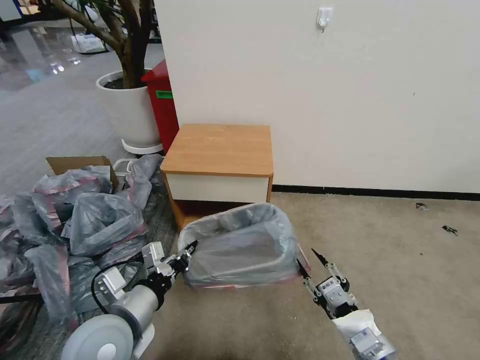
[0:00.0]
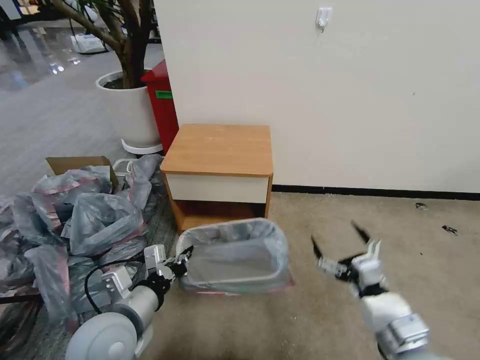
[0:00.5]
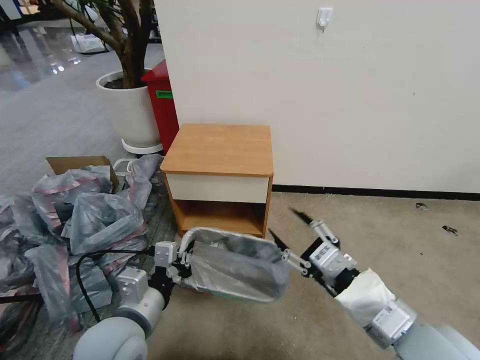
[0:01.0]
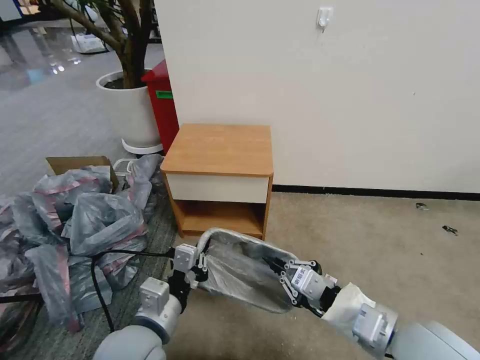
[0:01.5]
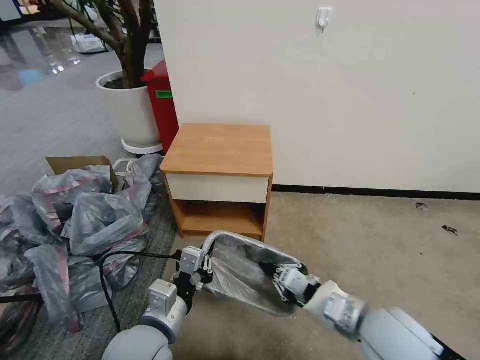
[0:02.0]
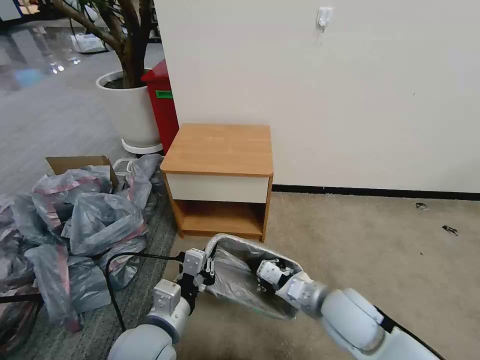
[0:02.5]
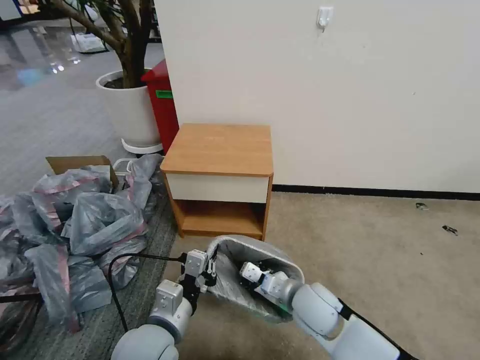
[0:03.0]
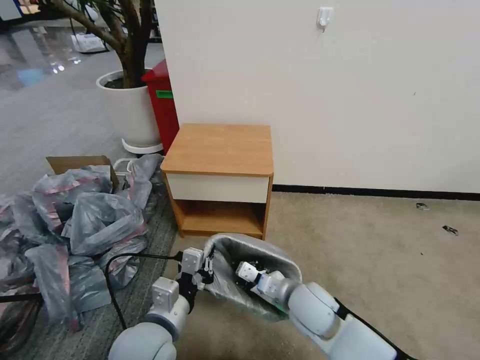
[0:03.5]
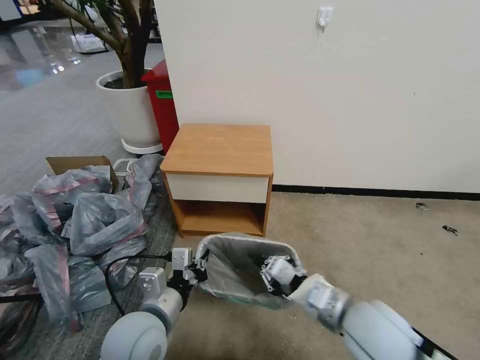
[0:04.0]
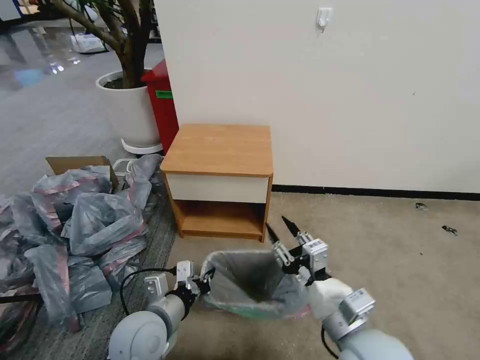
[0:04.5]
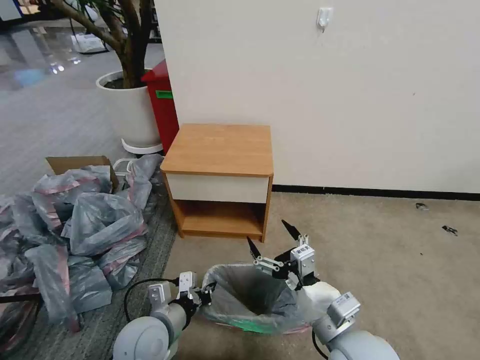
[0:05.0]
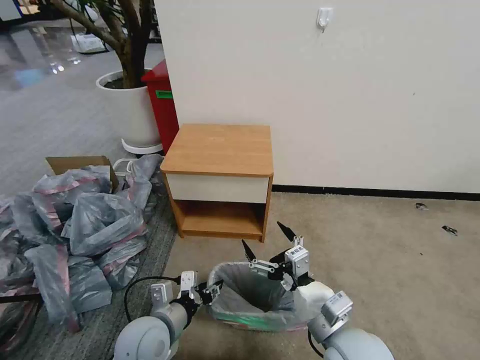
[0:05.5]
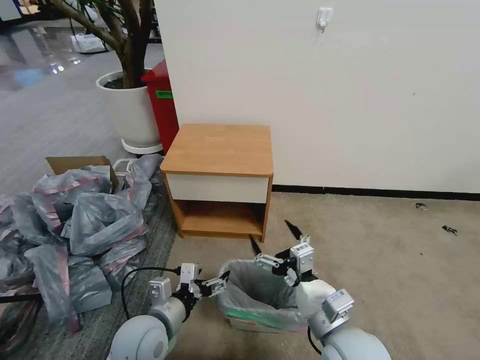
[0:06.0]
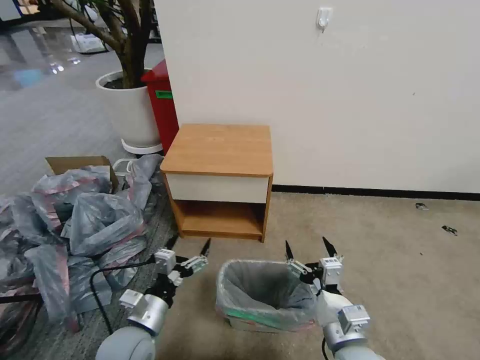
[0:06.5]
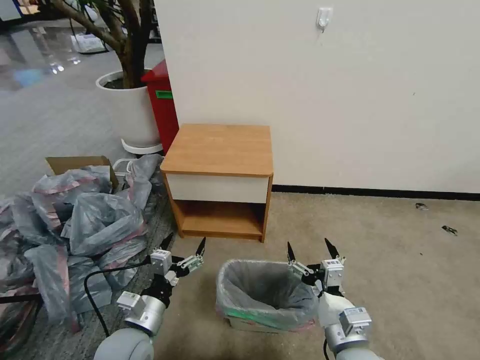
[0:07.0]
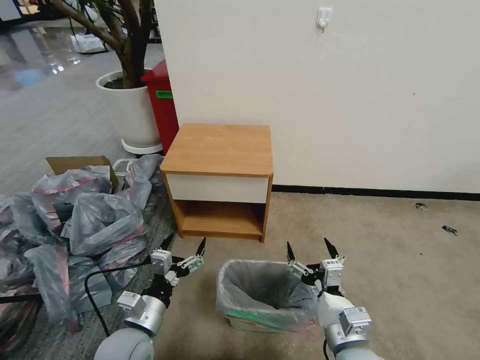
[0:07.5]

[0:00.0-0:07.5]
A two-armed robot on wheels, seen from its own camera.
Task of the whole recording: Pick up the garbage bag from the table and place it over the trash can.
0:00.0 to 0:02.0: The left gripper goes approximately 5 cm to the right. The right gripper heads upward and forward, covering about 10 cm, and closes.
0:02.0 to 0:04.0: The right gripper goes downward and returns, approximately 10 cm each way.
0:04.0 to 0:05.5: The right gripper shifts by approximately 5 cm, and opens, while the left gripper shifts about 5 cm downward, and opens up.
0:05.5 to 0:07.5: The right gripper ends up approximately 5 cm from where it was, while the left gripper opens up.

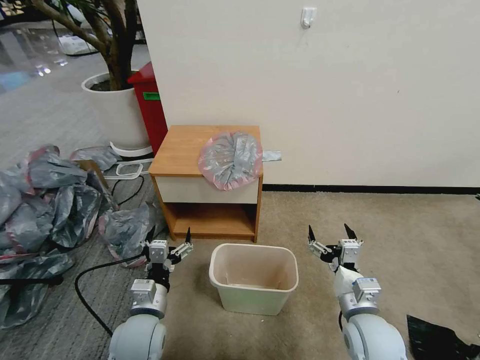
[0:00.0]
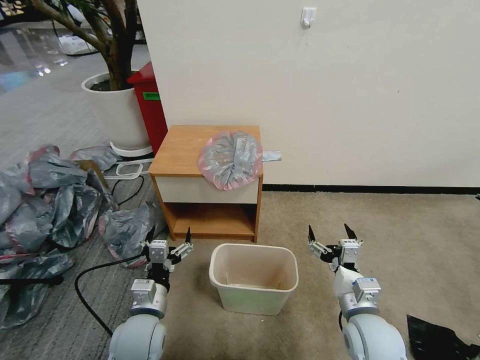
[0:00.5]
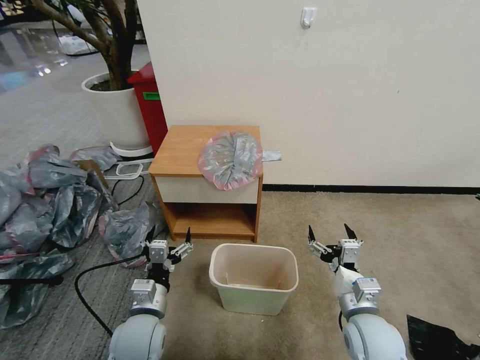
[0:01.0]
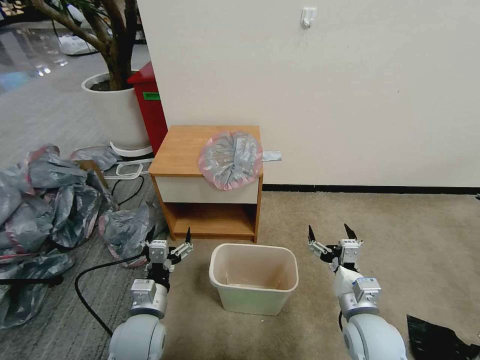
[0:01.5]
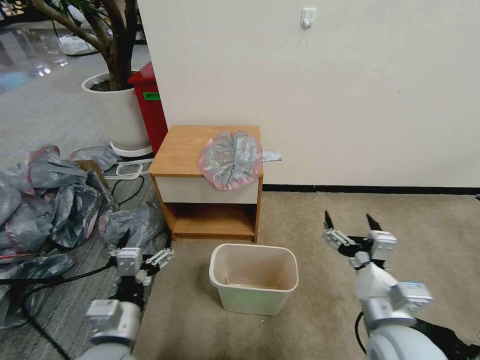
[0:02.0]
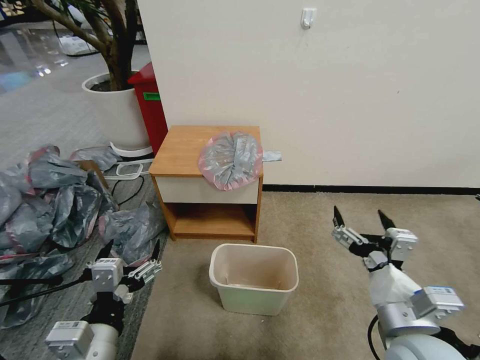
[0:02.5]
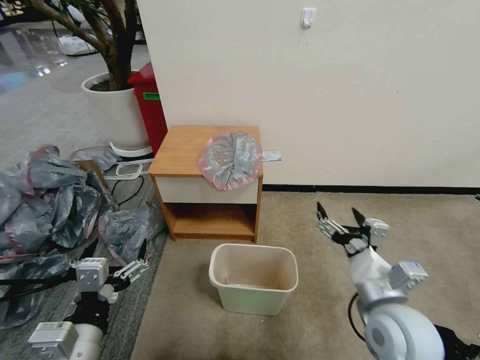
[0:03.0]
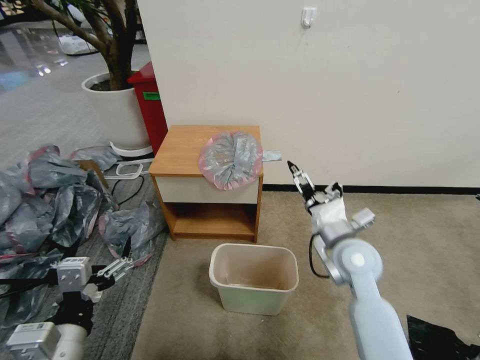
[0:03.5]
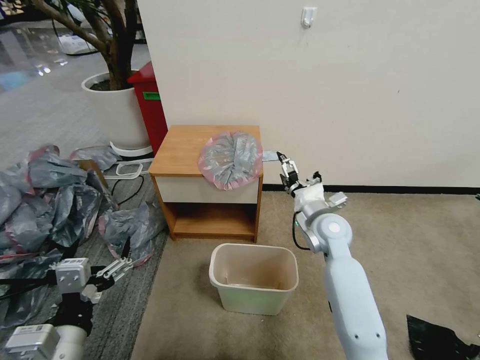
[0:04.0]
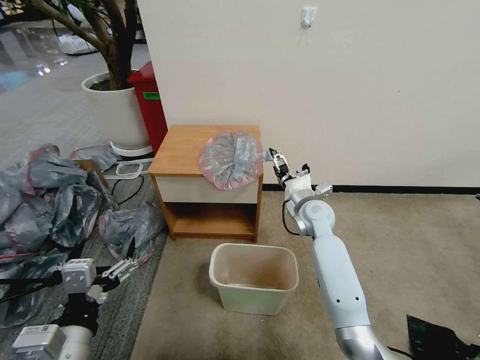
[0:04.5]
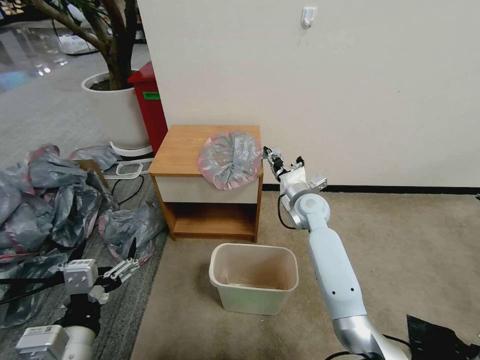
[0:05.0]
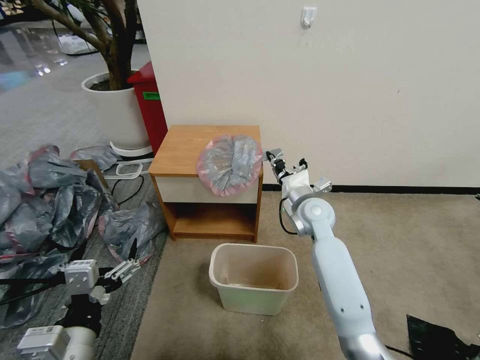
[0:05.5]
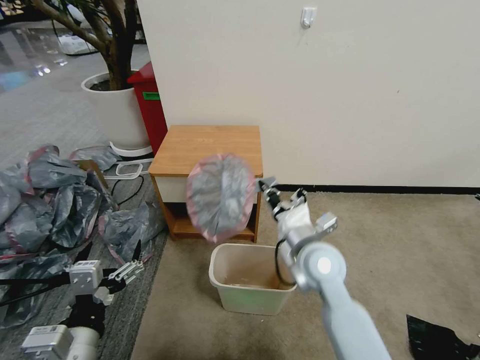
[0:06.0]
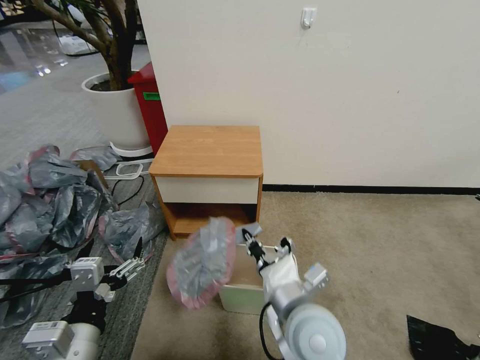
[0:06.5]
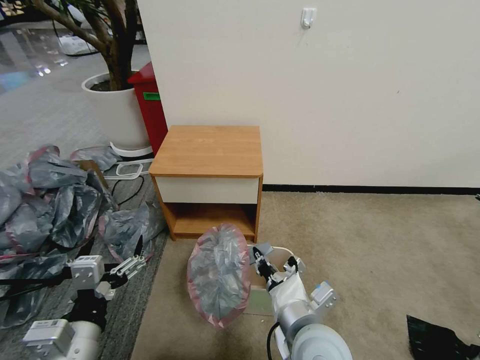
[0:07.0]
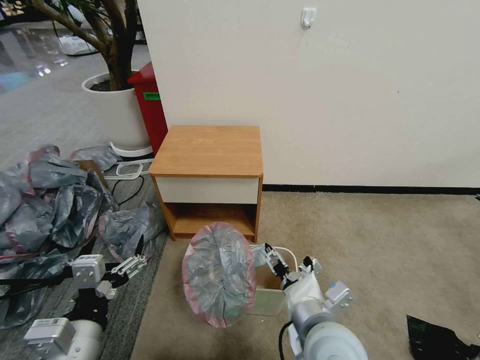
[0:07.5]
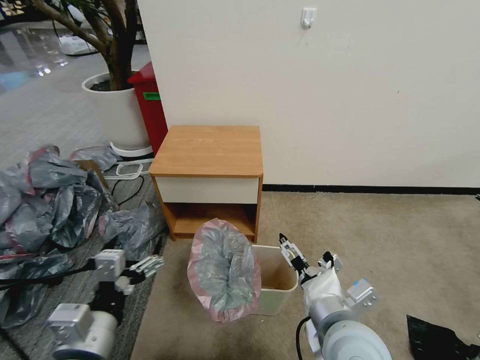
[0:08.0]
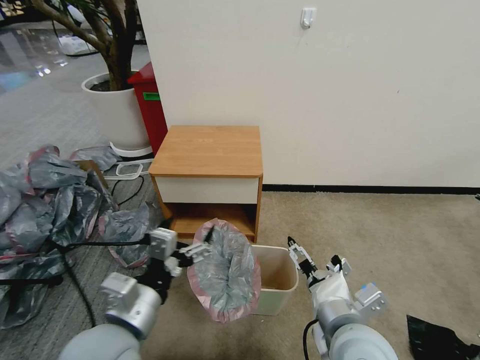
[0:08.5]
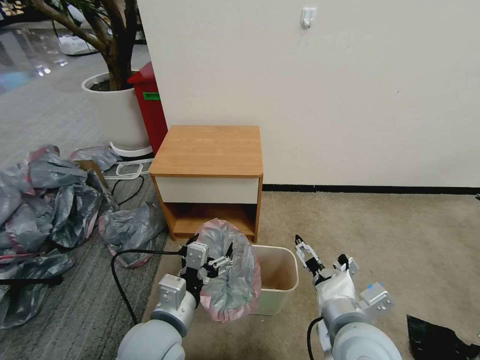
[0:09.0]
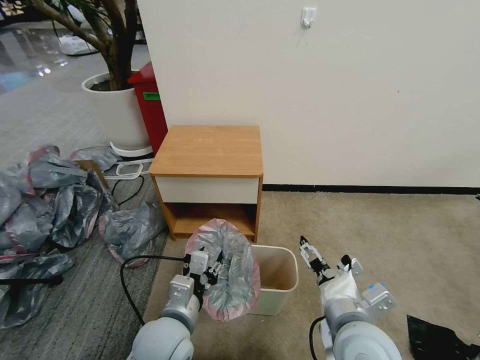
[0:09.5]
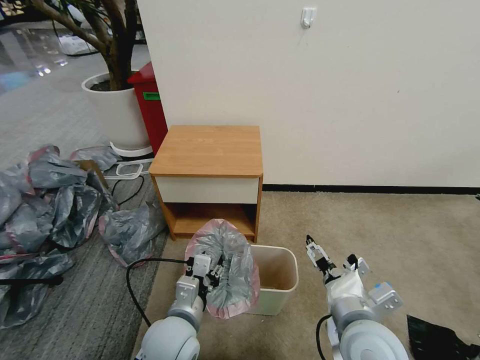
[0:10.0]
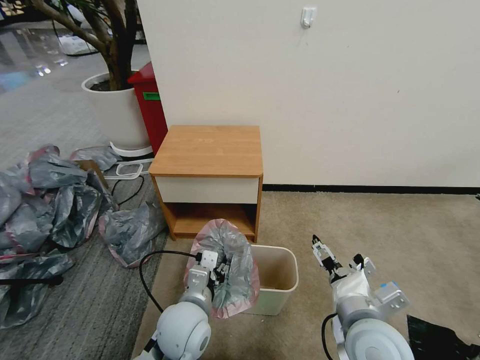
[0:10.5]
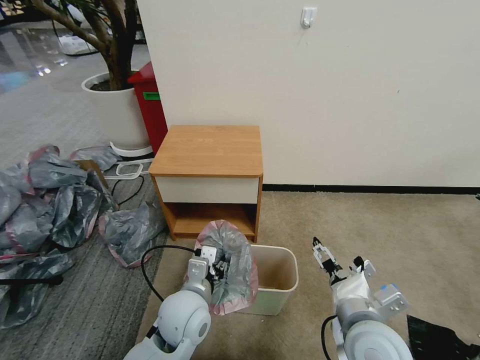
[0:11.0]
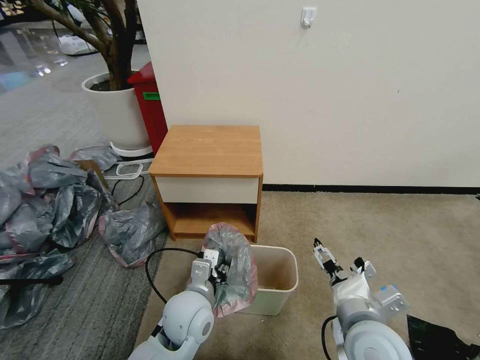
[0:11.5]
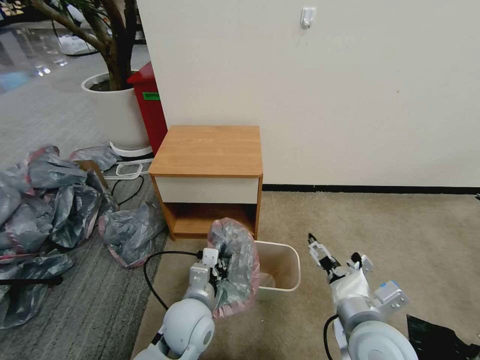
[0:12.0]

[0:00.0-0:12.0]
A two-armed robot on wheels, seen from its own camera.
Task of the whole recording: Pick up the garbage bag from the table and place it over the trash can.
0:02.0 to 0:04.0: The right gripper shifts roughly 25 cm forward, while the left gripper moves upward and backward, roughly 10 cm.
0:04.0 to 0:06.0: The right gripper heads backward and to the left, covering roughly 10 cm, and closes.
0:06.0 to 0:08.0: The right gripper heads backward, covering some 15 cm, and opens its fingers.
0:08.0 to 0:10.0: The left gripper travels to the right, downward and forward by approximately 15 cm, and closes up.
0:10.0 to 0:12.0: The left gripper moves some 5 cm, and closes its fingers.

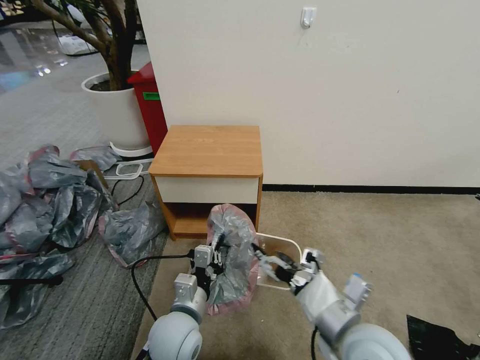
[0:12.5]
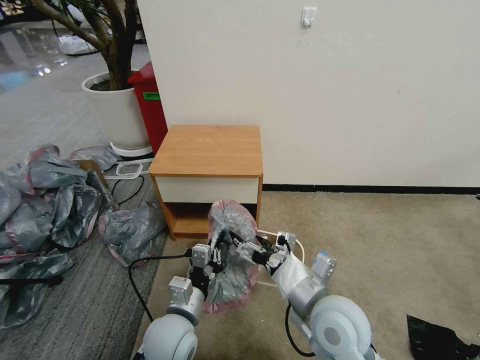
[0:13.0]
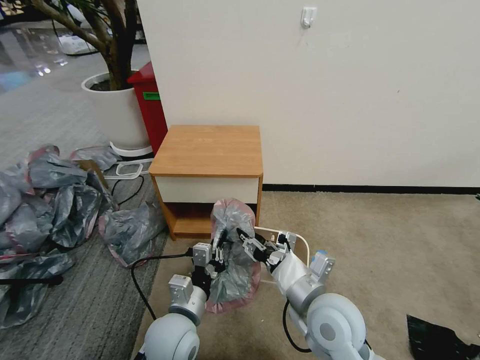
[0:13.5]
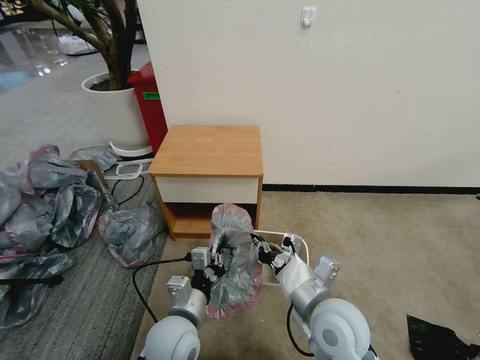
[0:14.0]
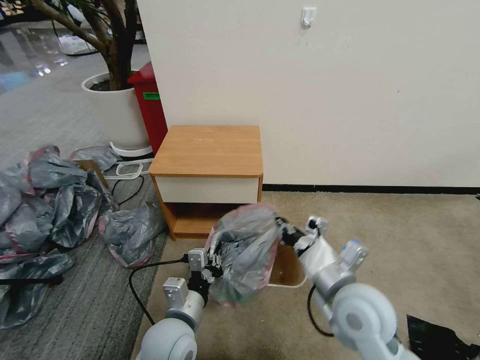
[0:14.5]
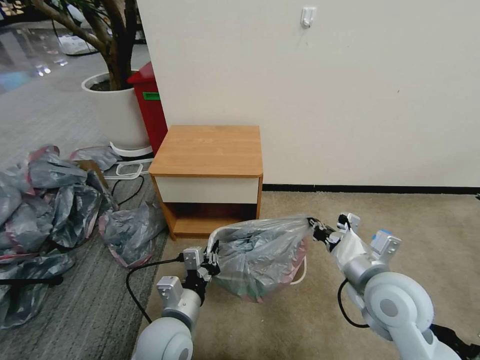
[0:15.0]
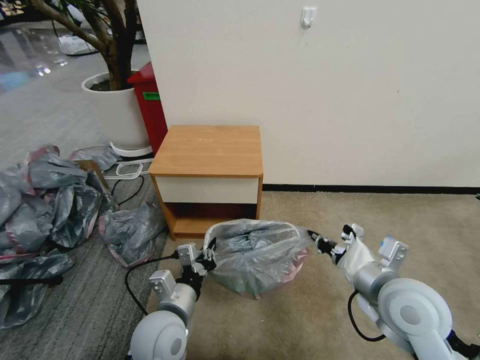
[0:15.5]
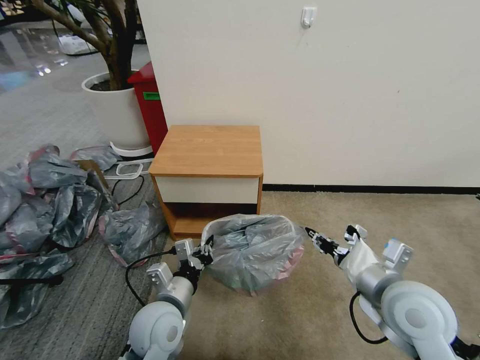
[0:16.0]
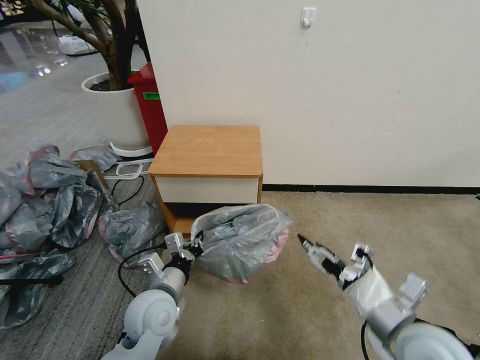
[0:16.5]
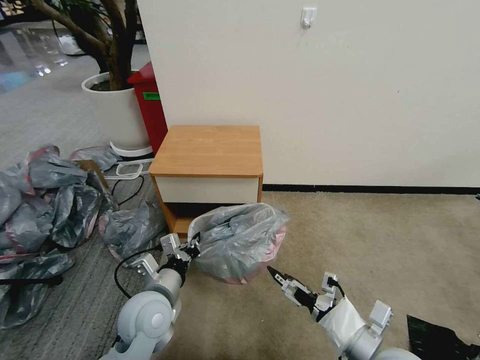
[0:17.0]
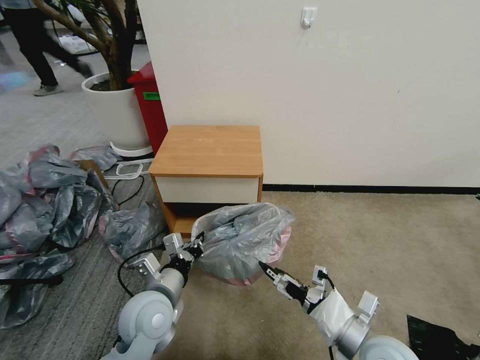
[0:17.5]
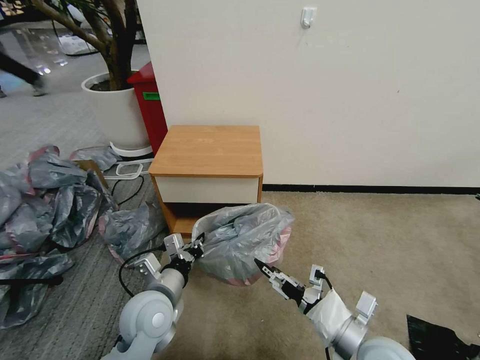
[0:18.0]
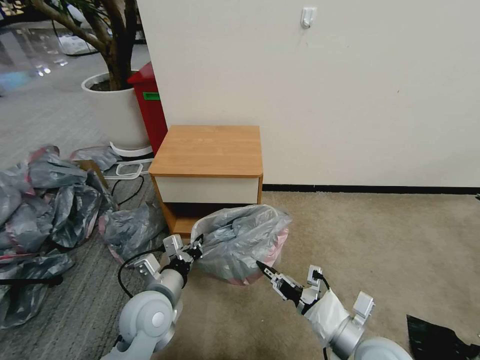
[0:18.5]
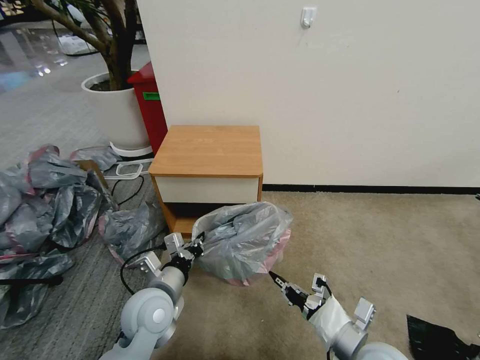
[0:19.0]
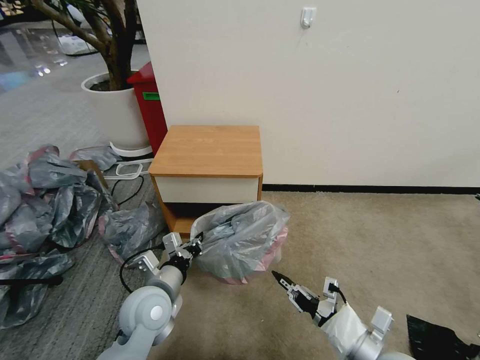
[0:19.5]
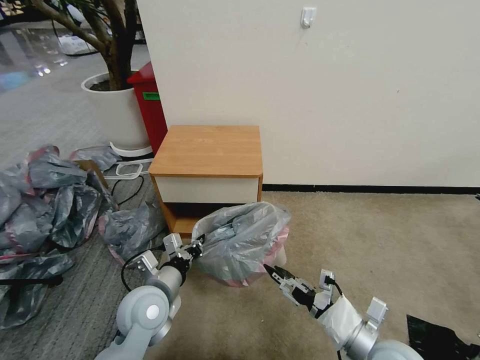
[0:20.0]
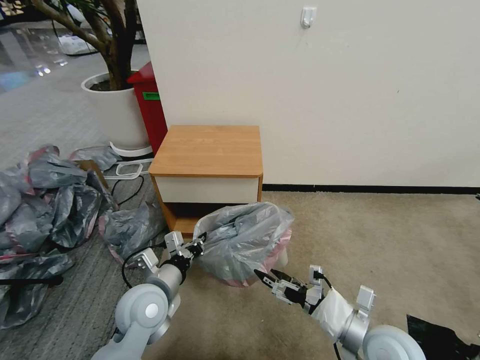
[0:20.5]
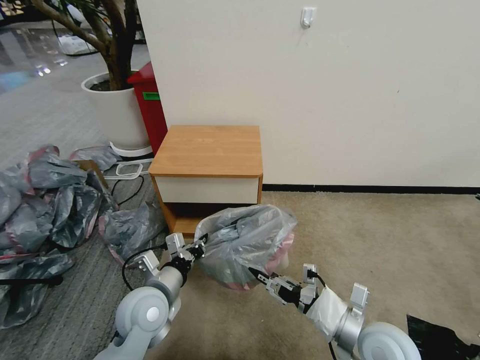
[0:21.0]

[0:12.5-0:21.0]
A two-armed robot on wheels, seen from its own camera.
Task of the whole recording: Pick up the garbage bag from the table and place it over the trash can.
0:12.5 to 0:14.5: The right gripper goes roughly 5 cm forward, and closes up.
0:14.5 to 0:16.5: The right gripper is displaced to the right and backward by roughly 10 cm, and opens up. The left gripper is displaced forward by roughly 5 cm.
0:16.5 to 0:19.0: The right gripper shifts about 10 cm downward, and closes.
0:19.0 to 0:21.0: The right gripper opens.
